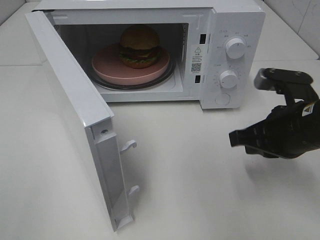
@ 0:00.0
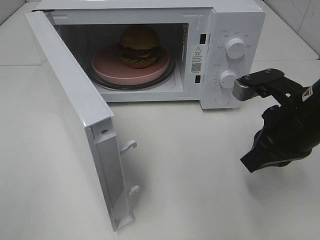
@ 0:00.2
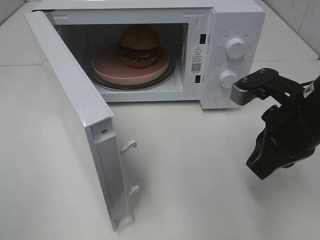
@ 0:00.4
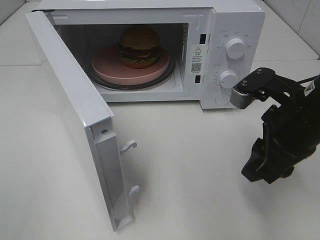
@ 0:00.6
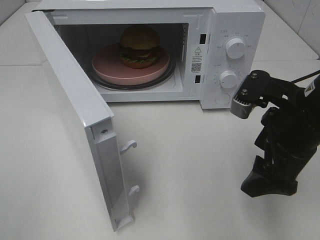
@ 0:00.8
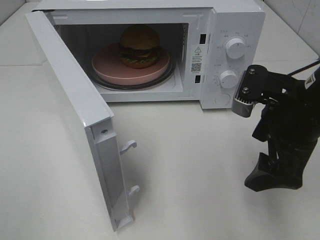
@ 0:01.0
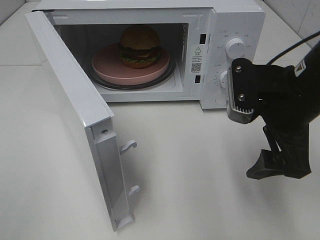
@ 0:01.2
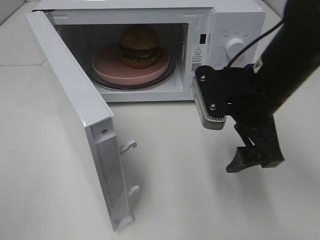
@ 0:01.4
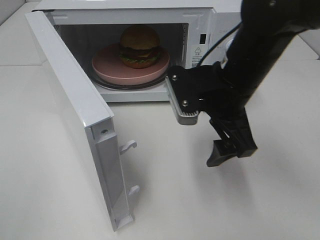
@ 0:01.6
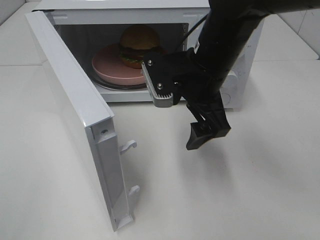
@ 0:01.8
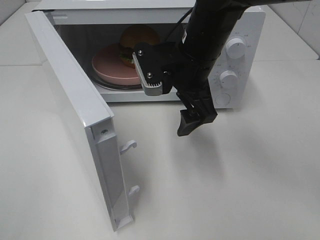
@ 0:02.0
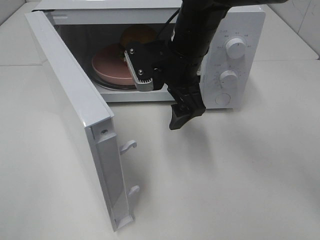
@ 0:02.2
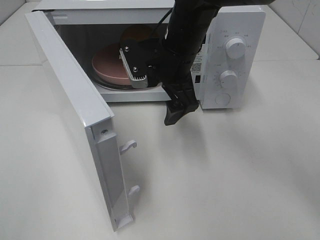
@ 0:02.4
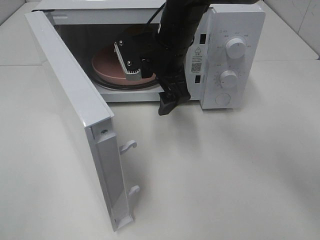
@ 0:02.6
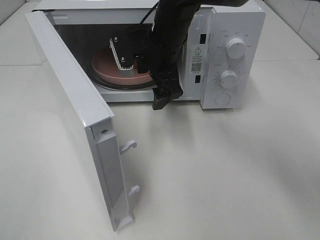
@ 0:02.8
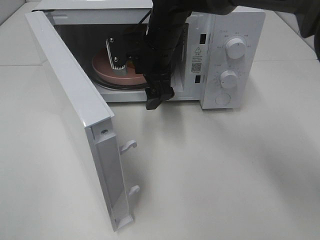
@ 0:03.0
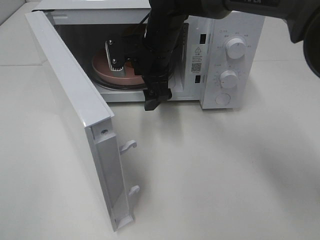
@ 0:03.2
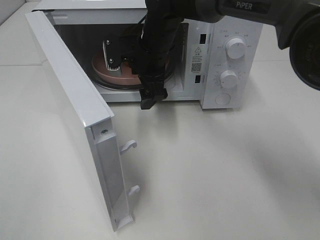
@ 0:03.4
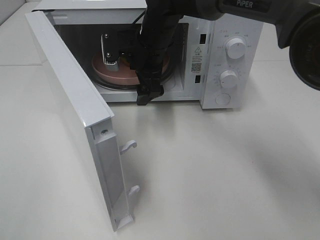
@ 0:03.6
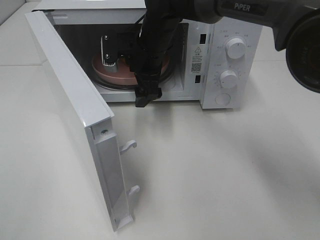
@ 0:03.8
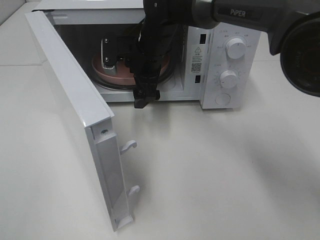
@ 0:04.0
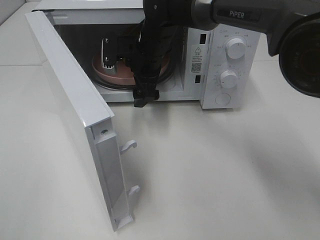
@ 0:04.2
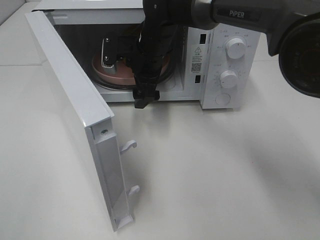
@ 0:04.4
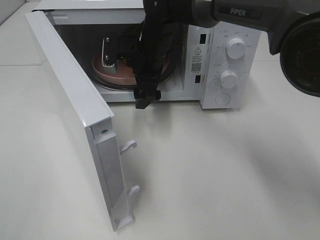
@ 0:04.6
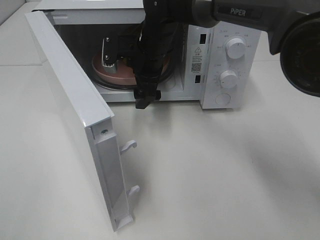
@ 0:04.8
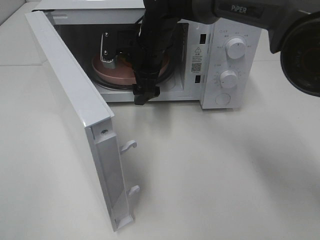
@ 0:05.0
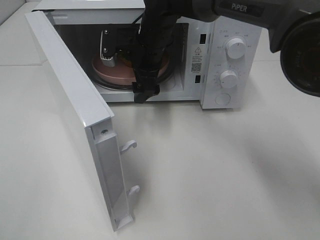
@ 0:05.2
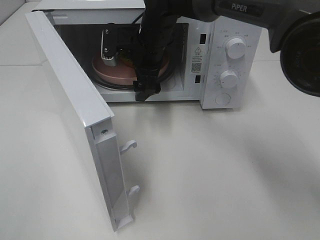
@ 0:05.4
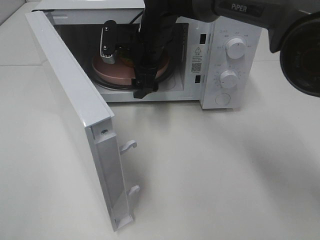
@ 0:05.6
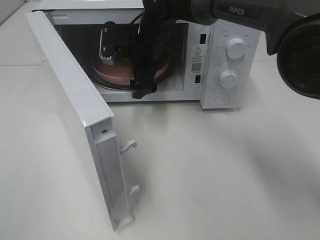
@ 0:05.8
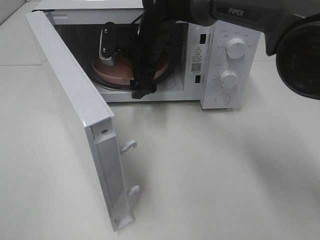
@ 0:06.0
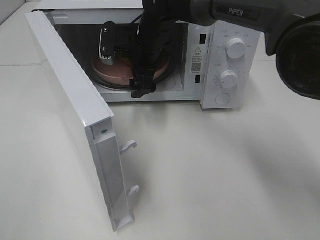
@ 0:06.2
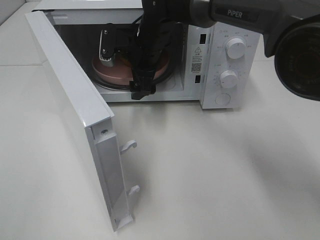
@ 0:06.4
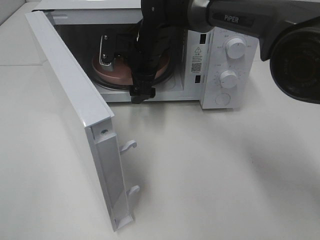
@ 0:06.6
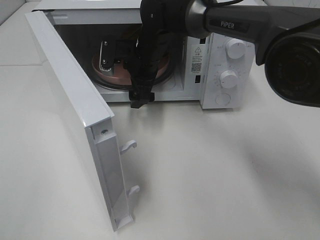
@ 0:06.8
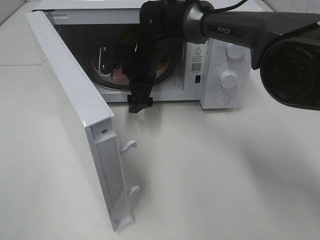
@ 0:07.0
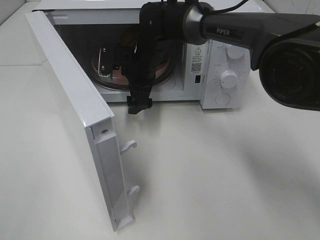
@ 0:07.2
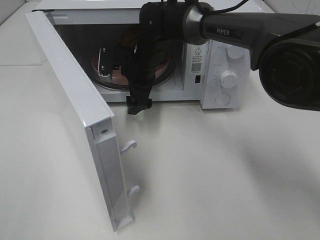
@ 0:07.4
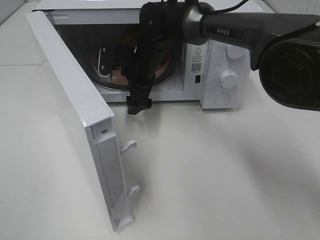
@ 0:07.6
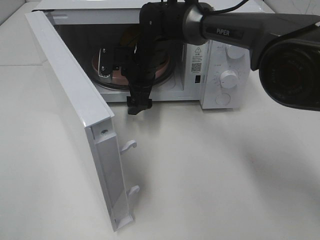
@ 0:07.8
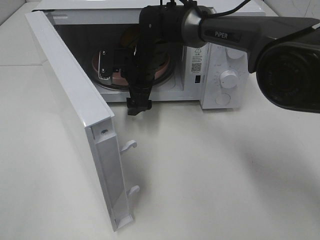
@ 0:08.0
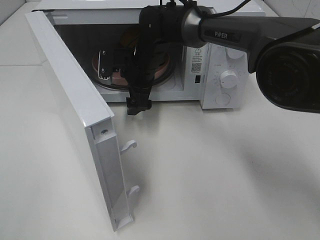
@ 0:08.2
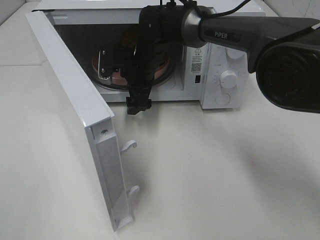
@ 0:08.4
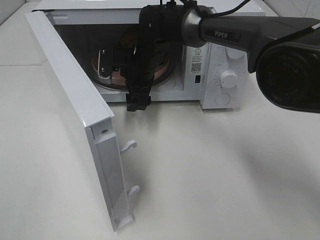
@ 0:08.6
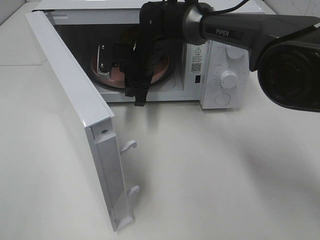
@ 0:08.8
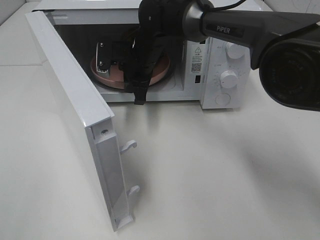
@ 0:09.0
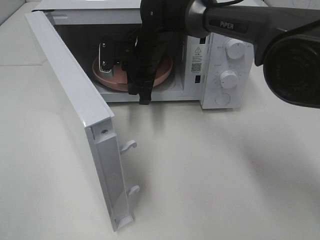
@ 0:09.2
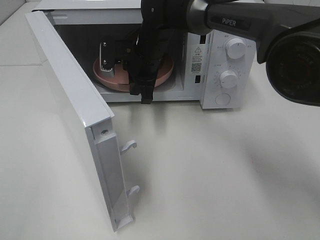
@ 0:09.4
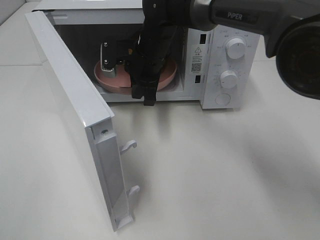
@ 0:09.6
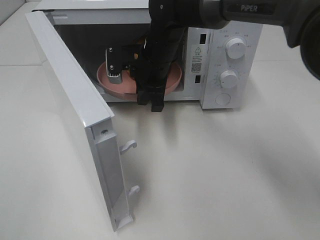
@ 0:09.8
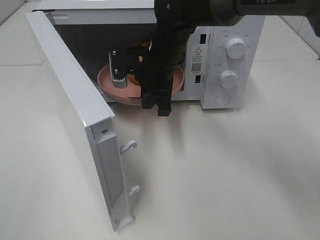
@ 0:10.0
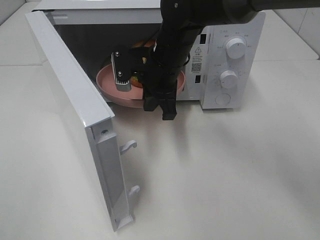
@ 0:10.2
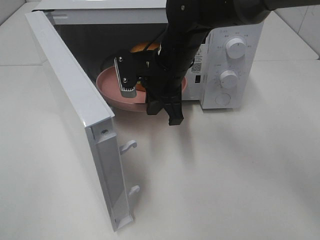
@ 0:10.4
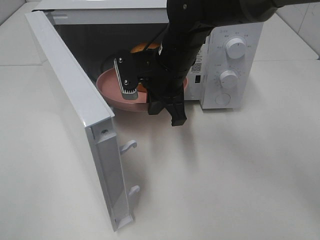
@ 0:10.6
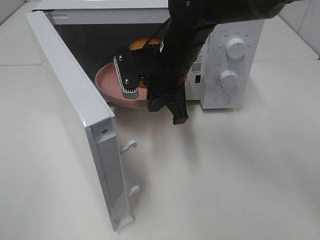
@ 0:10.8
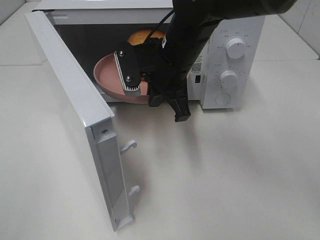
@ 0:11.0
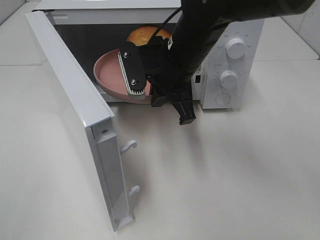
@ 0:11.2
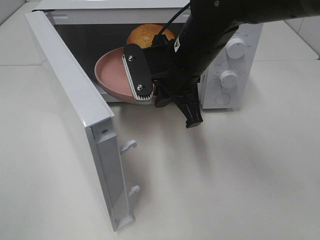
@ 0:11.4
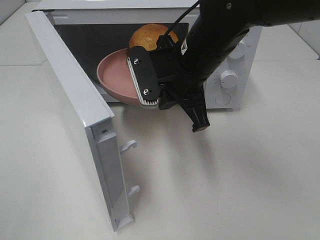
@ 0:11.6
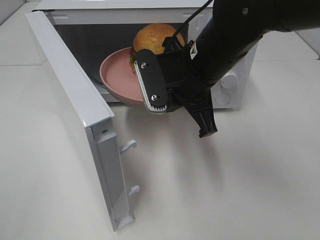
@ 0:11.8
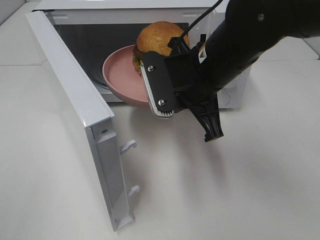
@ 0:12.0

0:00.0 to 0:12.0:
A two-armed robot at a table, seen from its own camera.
Task of the whole recording: Heat the burger.
Step, 0:00.0 to 0:09.0: Right hand: grab the plate with the hamburger.
0:00.0 to 0:01.6: The right gripper travels to the left by approximately 10 cm, and opens.
0:01.6 to 0:03.0: The right gripper is displaced forward and to the left by some 15 cm.
0:03.0 to 0:06.0: The grippers move only a little.
0:06.0 to 0:07.6: The grippers move only a little.
0:07.6 to 0:09.0: The right gripper closes up.
0:09.0 to 0:10.4: The right gripper shifts about 10 cm backward and to the right.
0:10.4 to 0:12.0: The right gripper shifts approximately 10 cm backward.

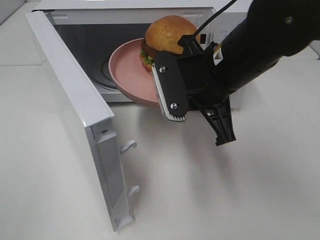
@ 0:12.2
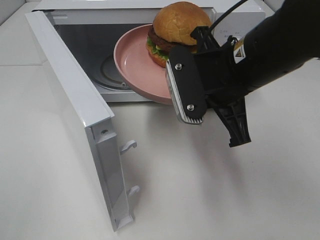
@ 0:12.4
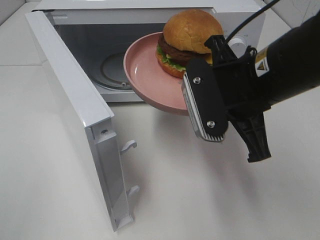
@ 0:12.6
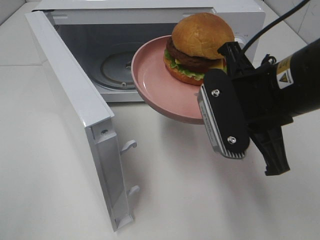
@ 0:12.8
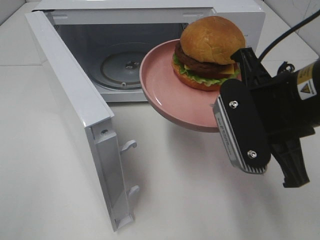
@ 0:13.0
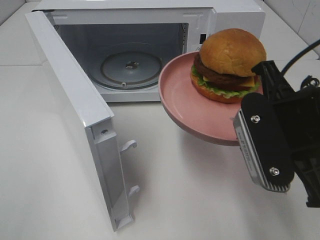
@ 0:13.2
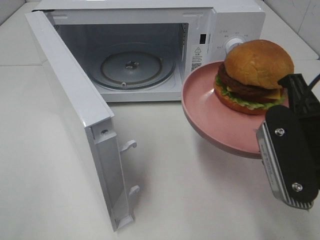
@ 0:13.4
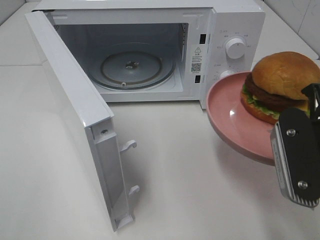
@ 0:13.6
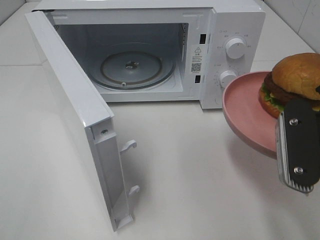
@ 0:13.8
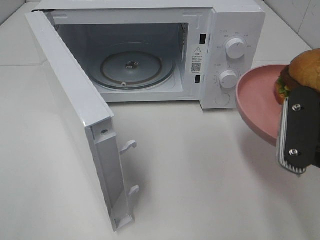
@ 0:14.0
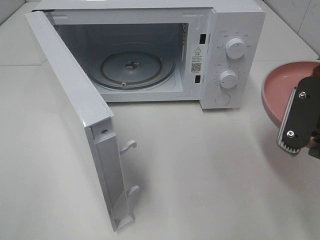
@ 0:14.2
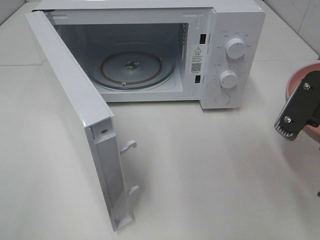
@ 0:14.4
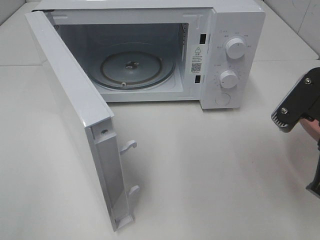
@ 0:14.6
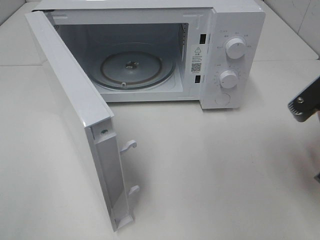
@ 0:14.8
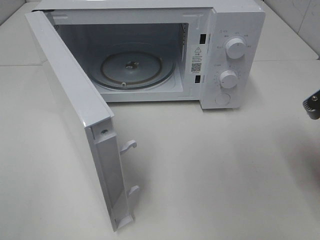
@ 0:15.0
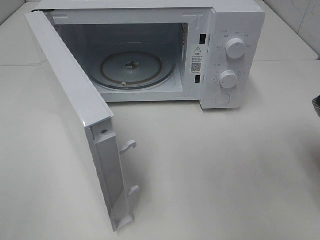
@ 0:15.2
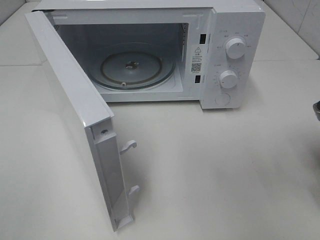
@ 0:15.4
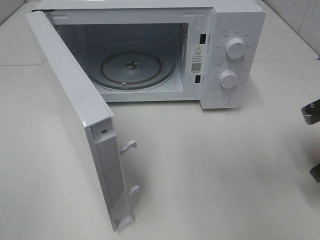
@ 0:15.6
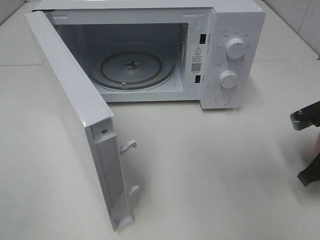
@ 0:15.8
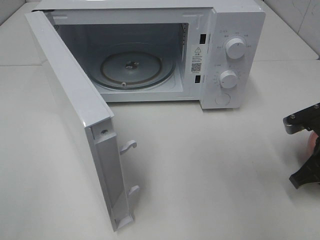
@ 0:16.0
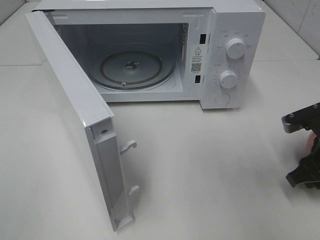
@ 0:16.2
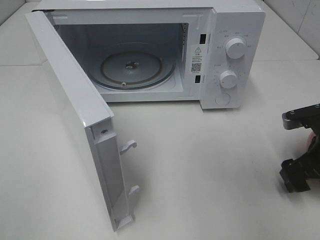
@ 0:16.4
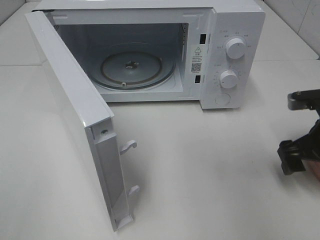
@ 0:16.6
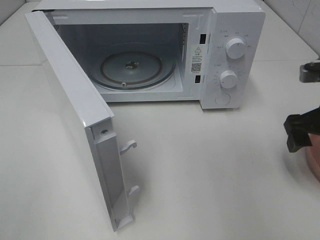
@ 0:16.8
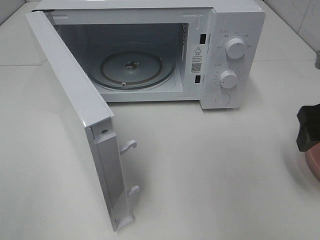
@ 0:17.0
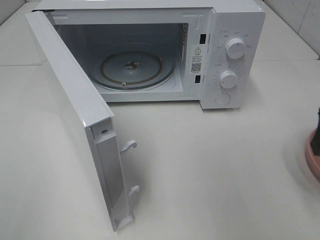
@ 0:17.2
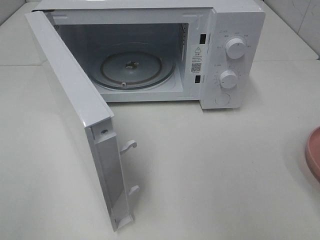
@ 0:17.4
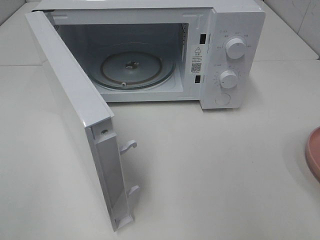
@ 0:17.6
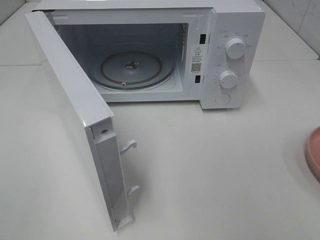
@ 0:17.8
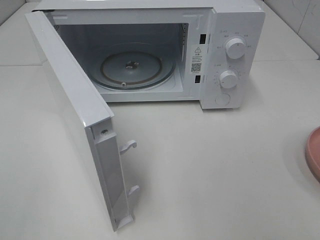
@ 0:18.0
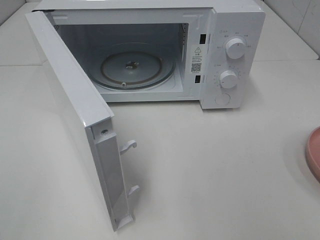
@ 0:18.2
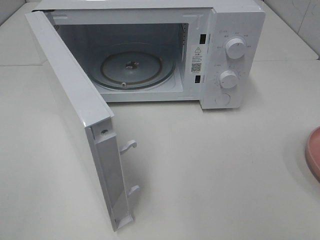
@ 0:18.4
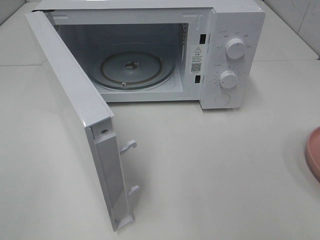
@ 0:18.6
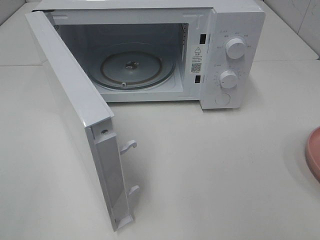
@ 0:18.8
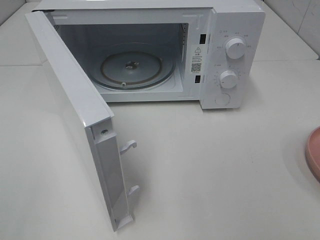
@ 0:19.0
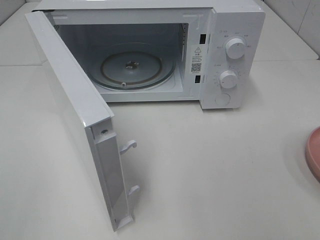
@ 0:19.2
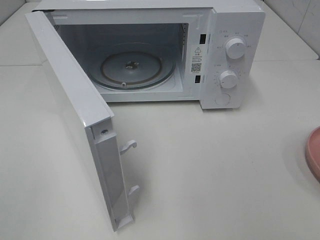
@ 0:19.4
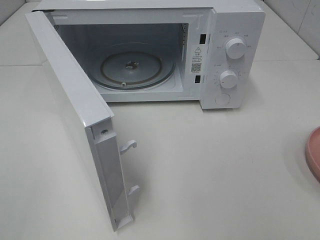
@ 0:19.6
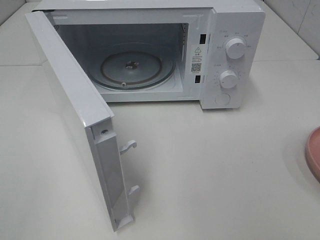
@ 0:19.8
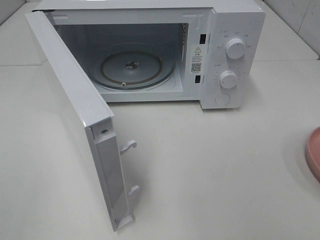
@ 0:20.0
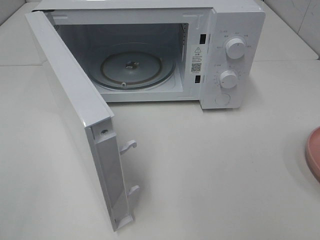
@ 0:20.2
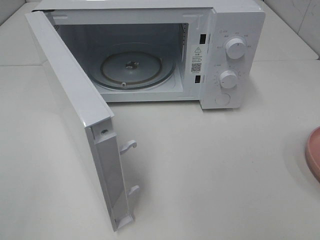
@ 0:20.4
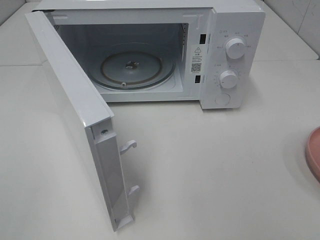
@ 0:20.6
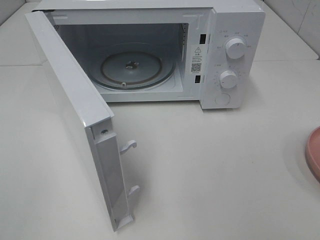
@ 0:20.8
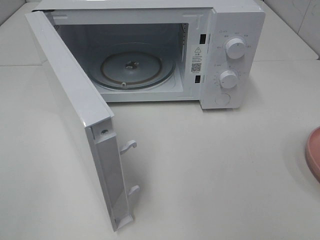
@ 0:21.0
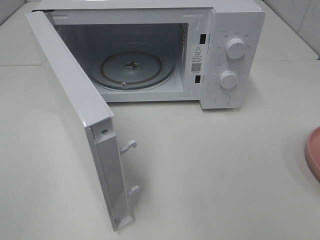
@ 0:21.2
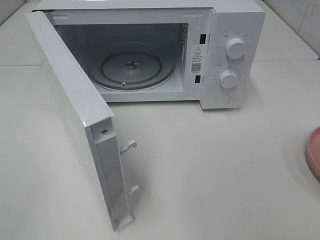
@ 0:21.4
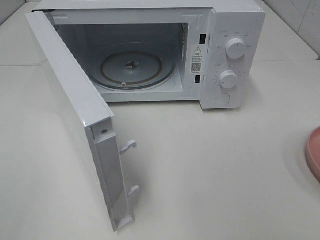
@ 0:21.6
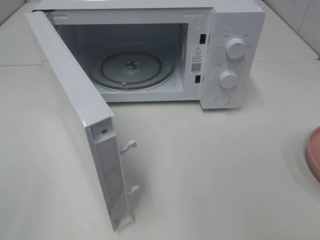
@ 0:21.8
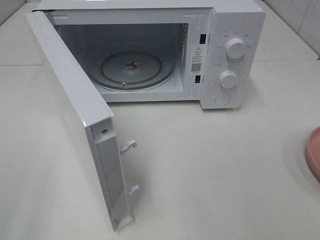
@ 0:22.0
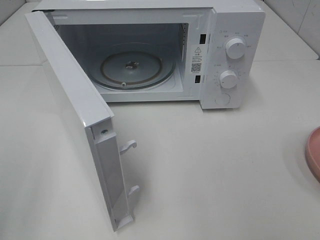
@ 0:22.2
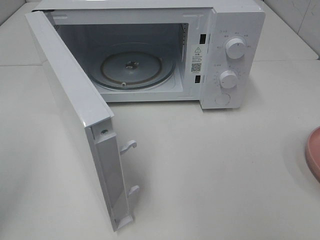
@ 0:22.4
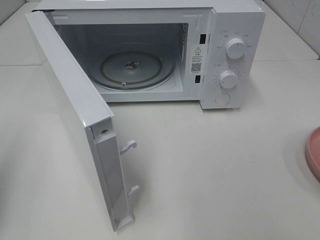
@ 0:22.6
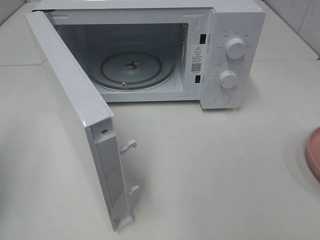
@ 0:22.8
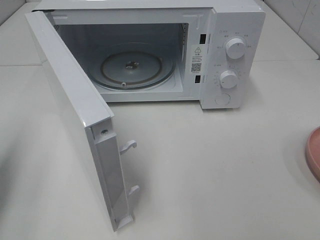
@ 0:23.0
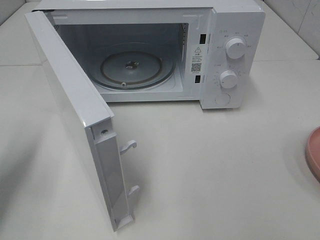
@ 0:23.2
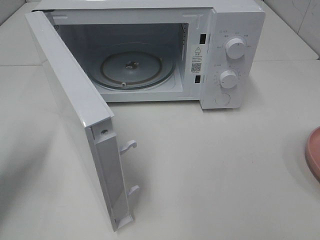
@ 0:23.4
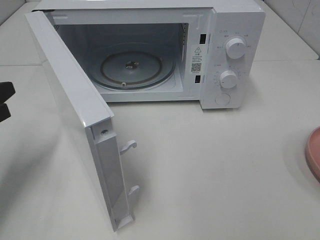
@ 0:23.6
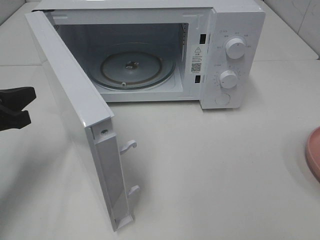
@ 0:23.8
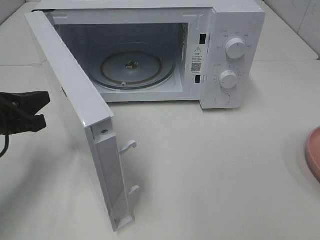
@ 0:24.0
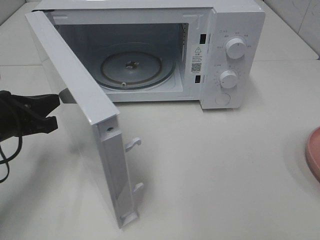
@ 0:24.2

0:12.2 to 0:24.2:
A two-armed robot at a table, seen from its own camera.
Task of the whole recording: Heat the burger.
Step, 0:12.2 to 0:16.0: Right hand: place the plate on the table.
0:12.2 to 0:13.8: The right gripper heads to the right and backward, covering about 15 cm.
0:13.8 to 0:15.2: The right gripper shifts some 10 cm to the right, forward and downward.
0:15.2 to 0:16.6: The right gripper ends up approximately 5 cm from where it was, and opens.
0:16.6 to 0:18.2: The right gripper moves backward and upward, approximately 30 cm.
0:19.8 to 0:21.2: Both grippers stay put.
0:22.6 to 0:24.2: The left gripper goes about 20 cm forward, downward and to the right.
